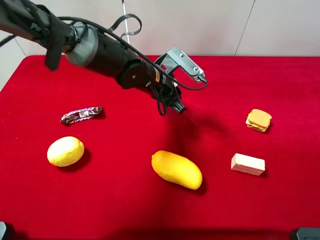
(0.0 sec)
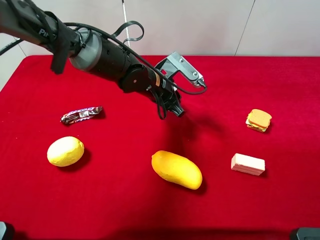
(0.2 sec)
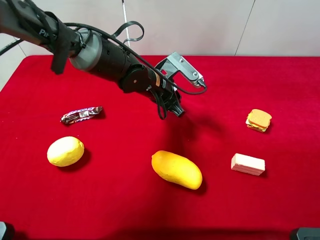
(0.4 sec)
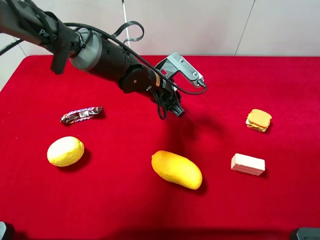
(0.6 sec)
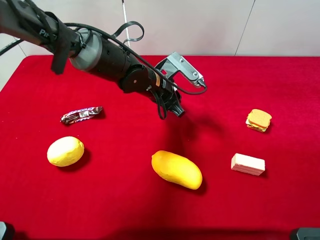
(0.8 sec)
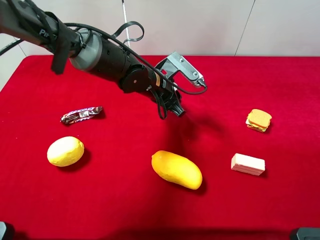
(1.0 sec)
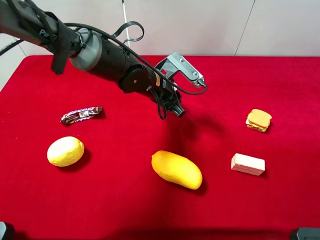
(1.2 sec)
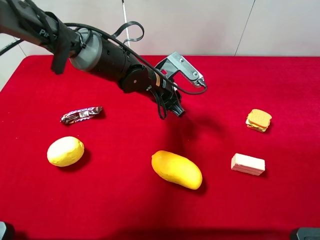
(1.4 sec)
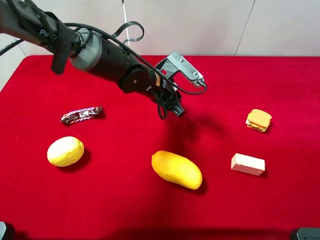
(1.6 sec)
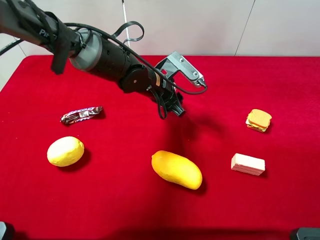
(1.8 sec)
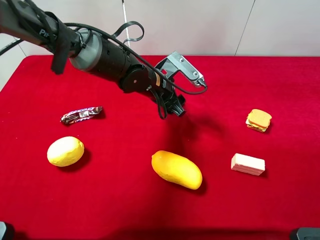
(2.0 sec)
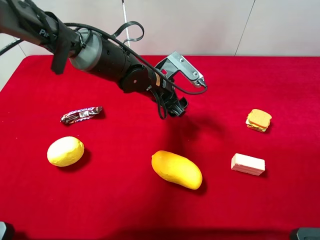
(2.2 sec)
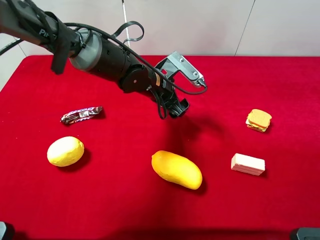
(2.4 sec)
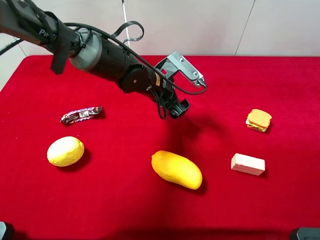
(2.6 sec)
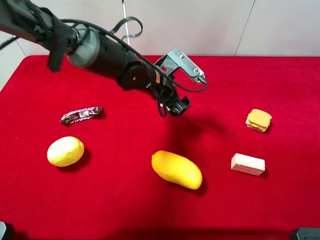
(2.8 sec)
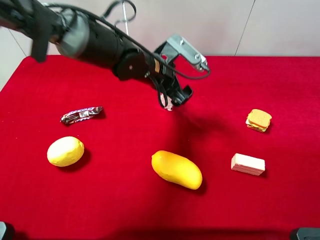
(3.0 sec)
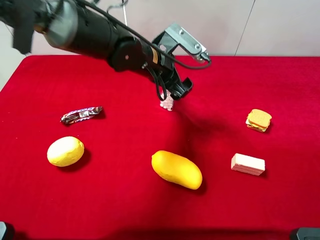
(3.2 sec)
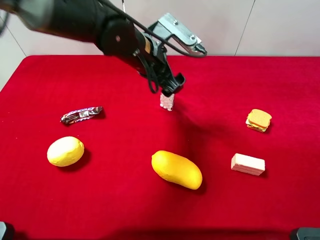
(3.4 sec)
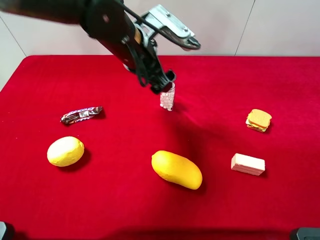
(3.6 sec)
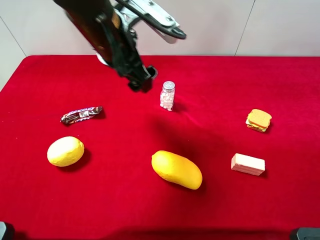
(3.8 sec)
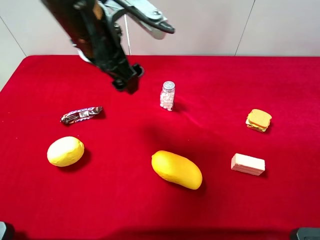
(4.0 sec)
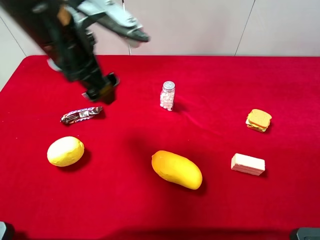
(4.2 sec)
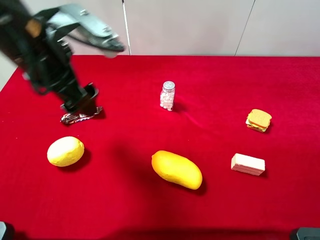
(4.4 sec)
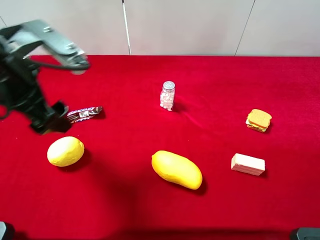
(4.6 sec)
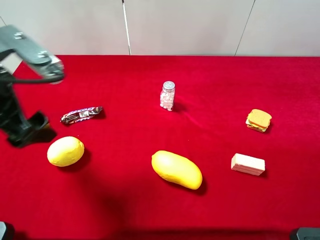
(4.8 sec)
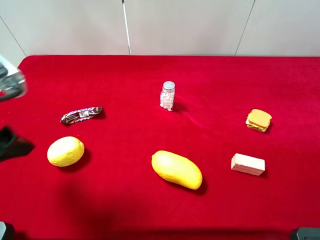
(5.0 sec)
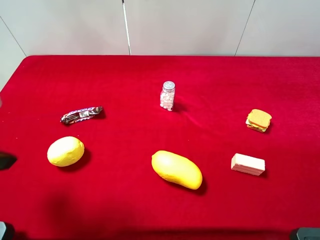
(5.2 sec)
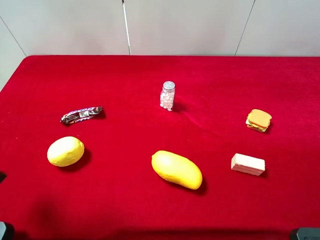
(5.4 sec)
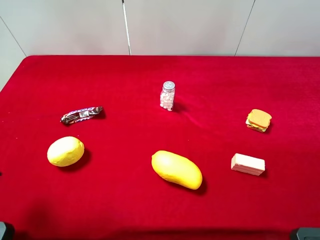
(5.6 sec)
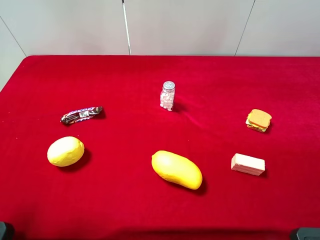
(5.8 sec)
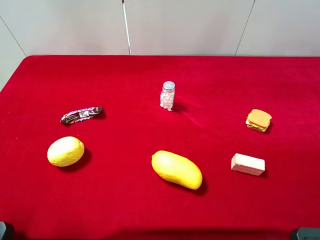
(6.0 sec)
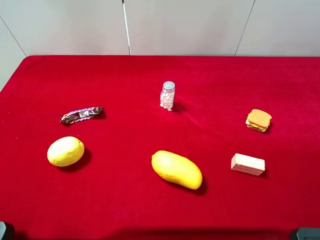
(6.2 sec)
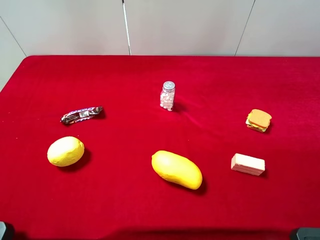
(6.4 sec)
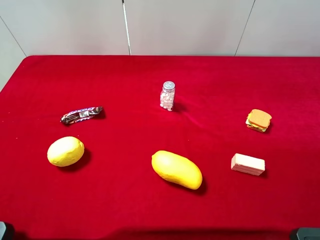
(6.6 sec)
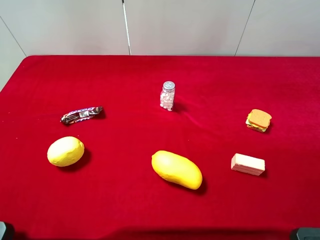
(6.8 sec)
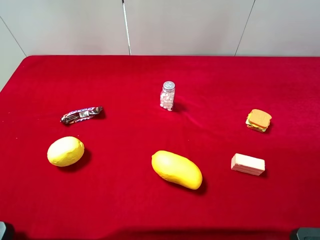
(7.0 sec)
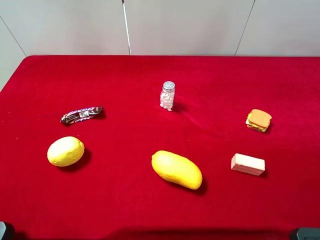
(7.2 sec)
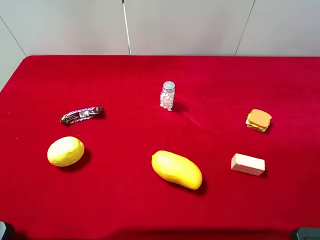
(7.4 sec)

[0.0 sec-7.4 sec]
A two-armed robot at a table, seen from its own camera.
Task of the whole recording: the gripper move the object.
Step, 0.0 sec to 3.4 sec: Place the mint candy on the table with the left gripper.
0.0 sec to 1.4 sec: The two grippers keep their place.
1.4 sec to 3.0 sec: The left gripper opens.
3.0 sec to 4.4 sec: The left gripper is displaced to the left, upward and backward by approximately 20 cm.
4.4 sec to 6.0 sec: The left gripper shifts approximately 25 cm backward and to the left.
